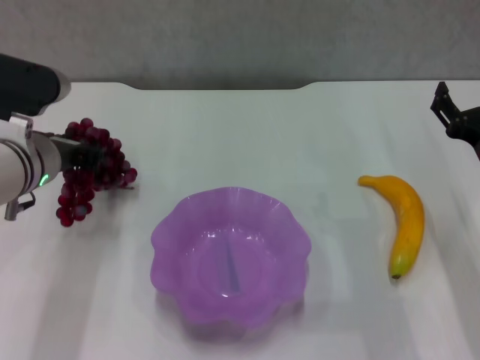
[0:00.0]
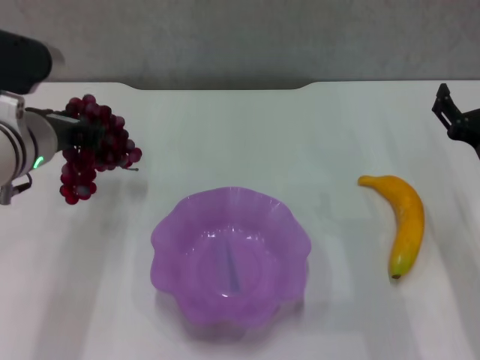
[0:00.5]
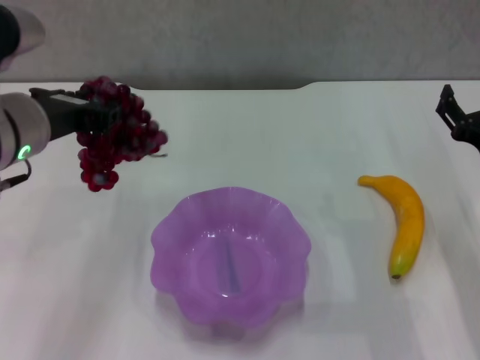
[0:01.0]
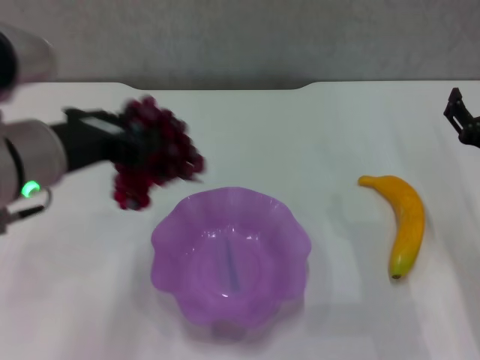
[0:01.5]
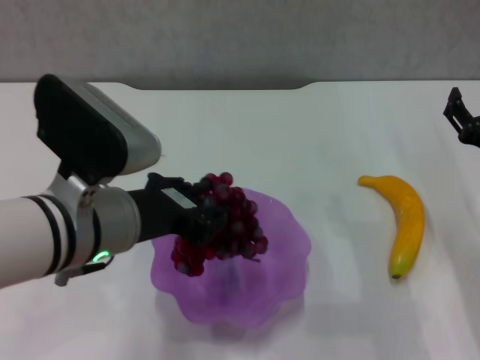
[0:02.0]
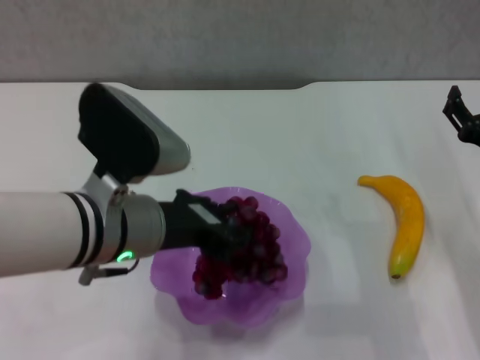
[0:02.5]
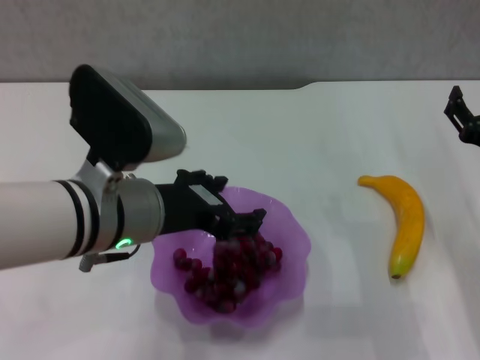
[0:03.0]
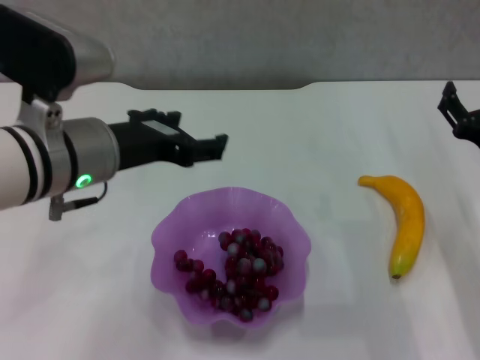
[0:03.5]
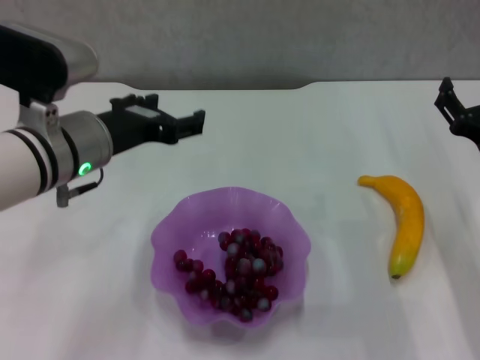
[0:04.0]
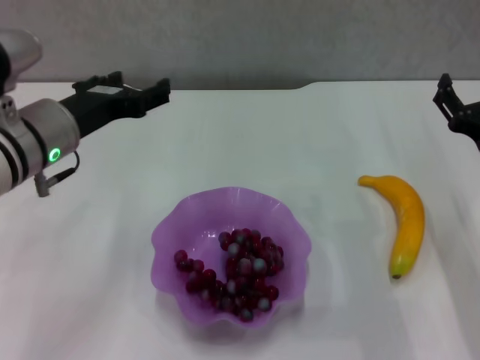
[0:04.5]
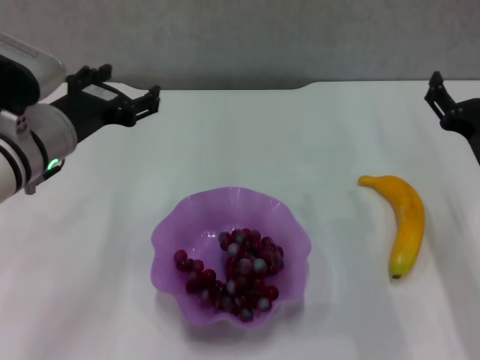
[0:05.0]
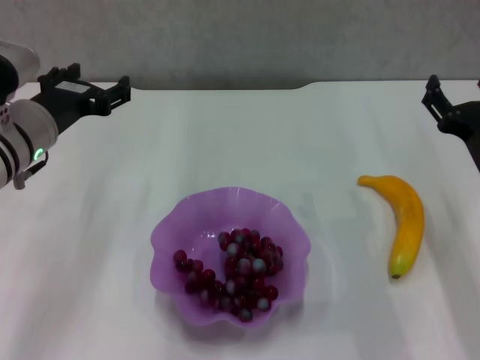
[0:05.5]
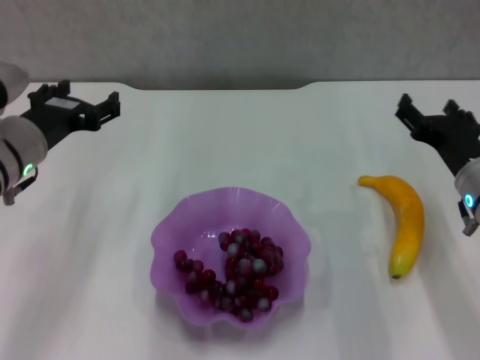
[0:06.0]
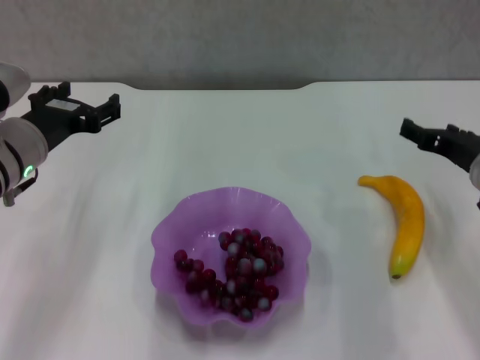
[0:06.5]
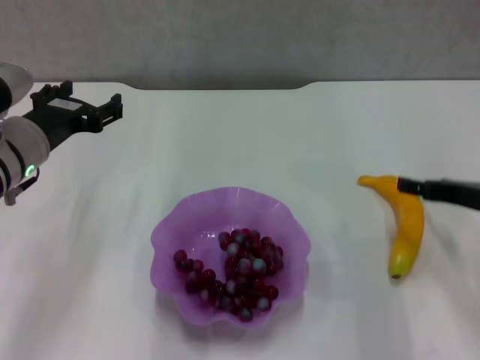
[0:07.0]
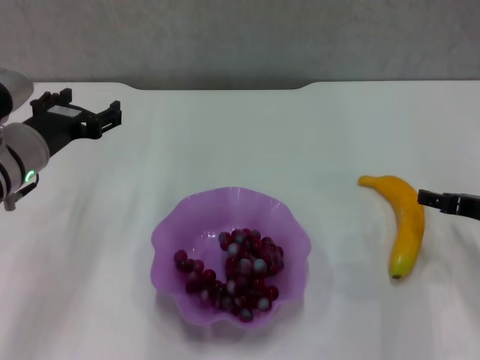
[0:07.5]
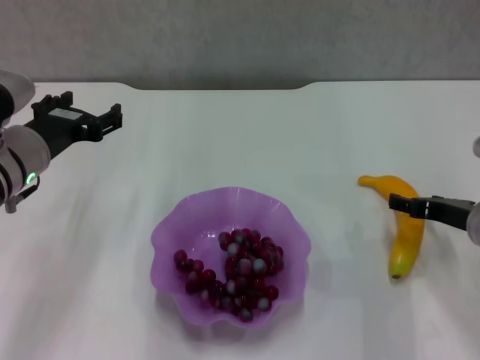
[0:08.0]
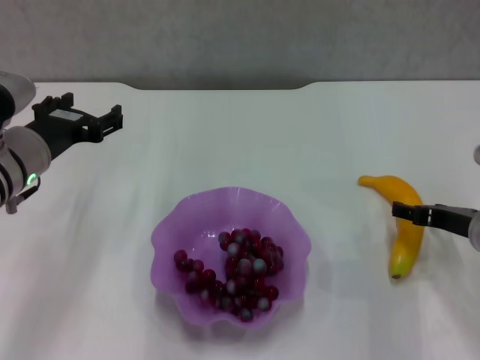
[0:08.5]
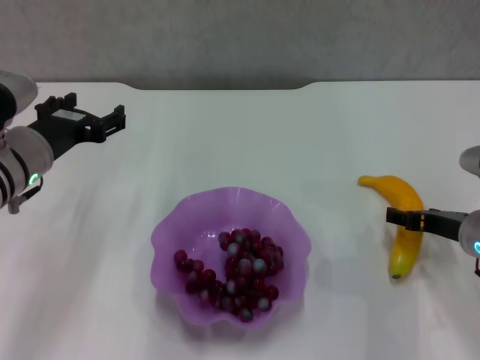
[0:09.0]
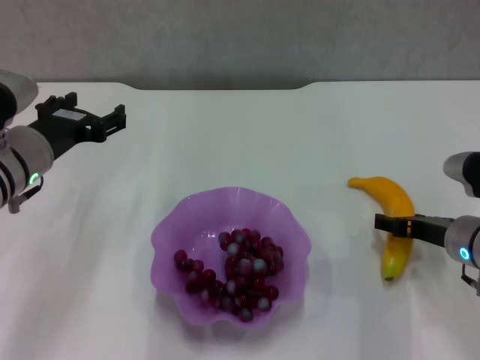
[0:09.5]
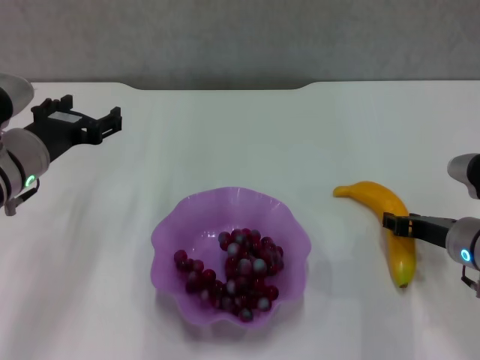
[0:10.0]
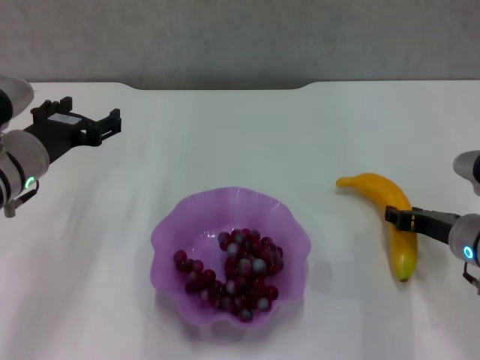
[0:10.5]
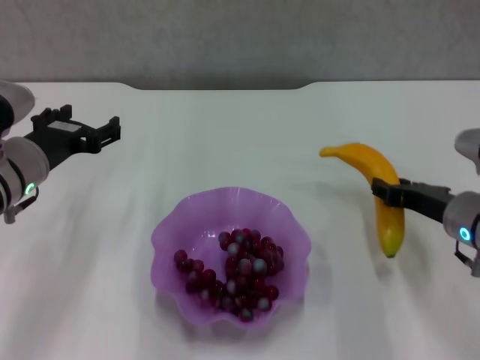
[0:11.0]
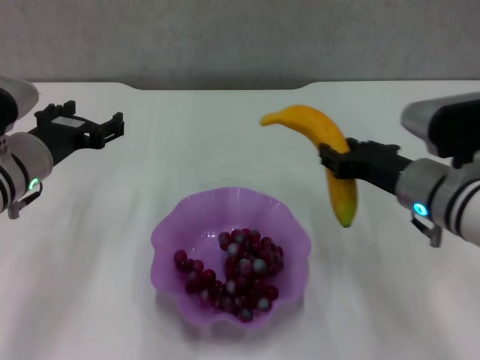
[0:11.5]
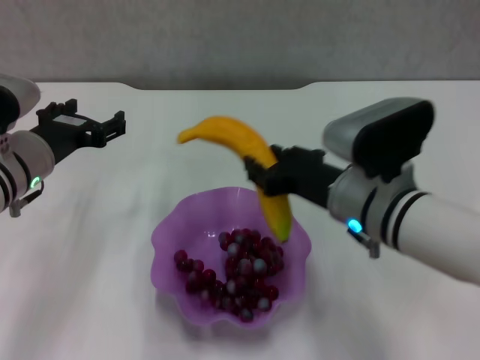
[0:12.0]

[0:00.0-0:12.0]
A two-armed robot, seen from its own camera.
Step, 0:00.0 to 0:03.0: Place the grape in the purple plate with left gripper.
Step, 0:03.5 to 0:10.0: Grasp the banana with right gripper.
0:00.0 to 0:02.0: The left gripper goes roughly 10 cm backward and to the right.
0:02.0 to 0:04.0: The left gripper is displaced forward by about 10 cm, and opens.
0:04.0 to 0:06.0: The left gripper shifts some 5 cm to the left.
0:08.0 to 0:10.0: The right gripper closes up.
0:10.0 to 0:12.0: The right gripper goes roughly 15 cm to the left and upward.

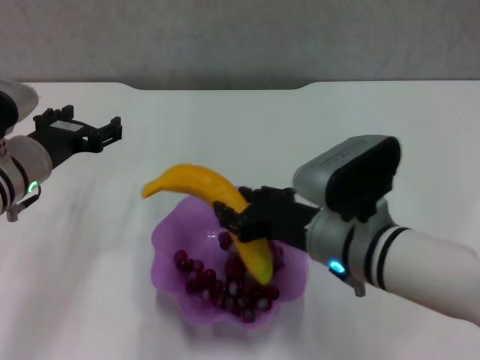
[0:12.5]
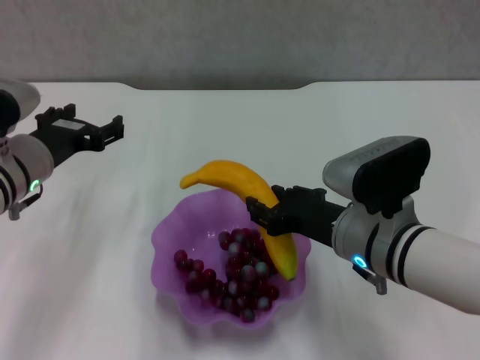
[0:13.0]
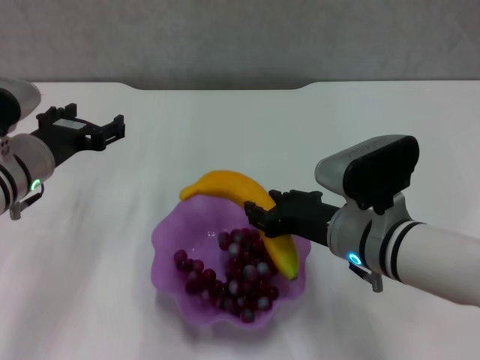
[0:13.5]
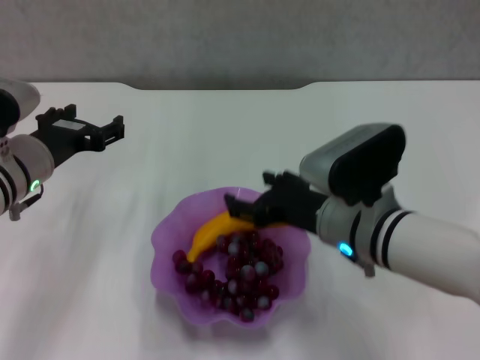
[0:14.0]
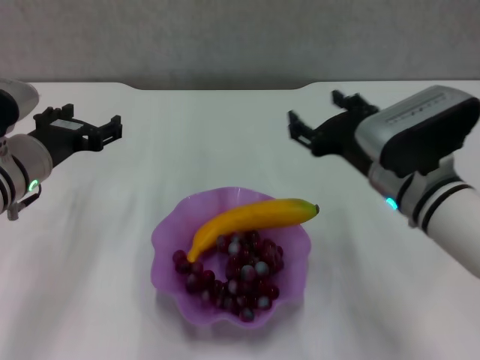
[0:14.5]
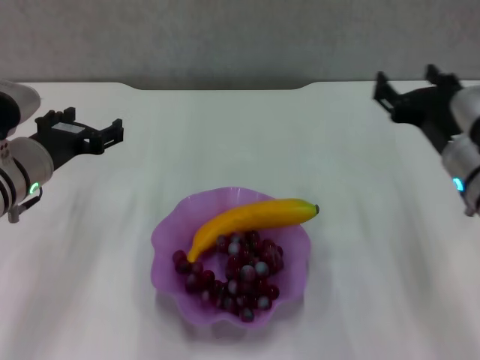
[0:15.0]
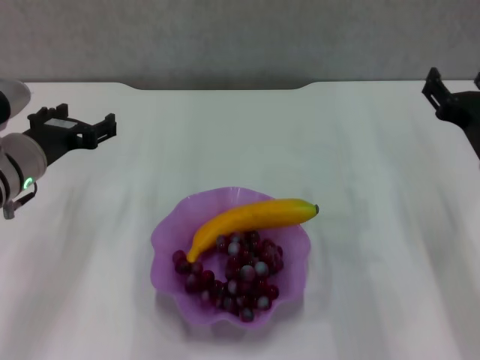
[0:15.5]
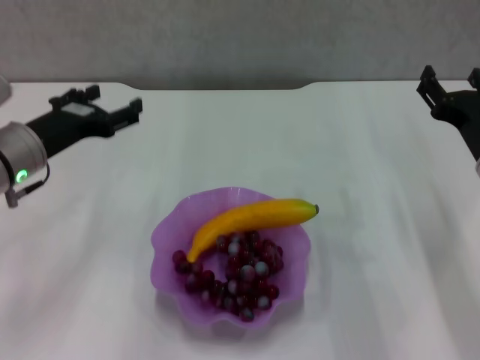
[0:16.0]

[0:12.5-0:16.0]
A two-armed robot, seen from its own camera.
0:12.5 to 0:14.5: The right gripper goes approximately 5 cm to the right, and opens its fingers.
0:14.5 to 0:16.0: The right gripper goes approximately 10 cm to the right.
